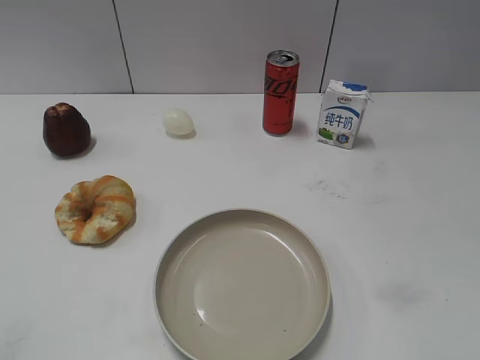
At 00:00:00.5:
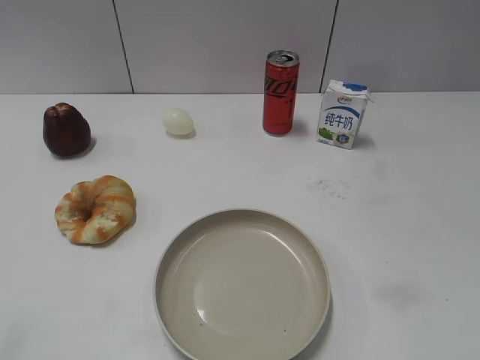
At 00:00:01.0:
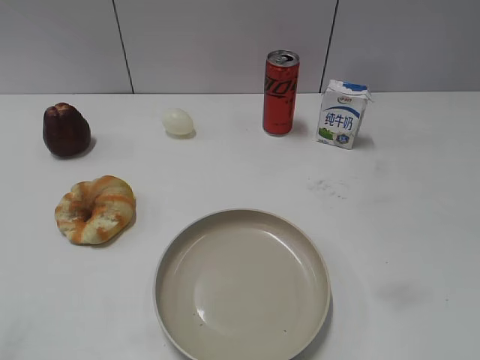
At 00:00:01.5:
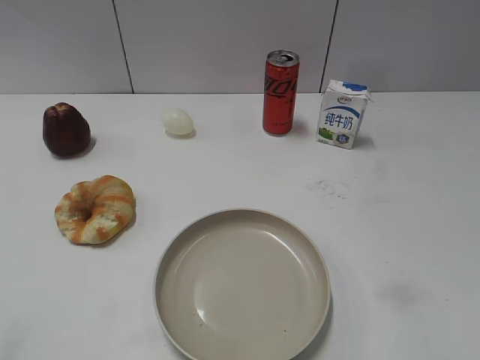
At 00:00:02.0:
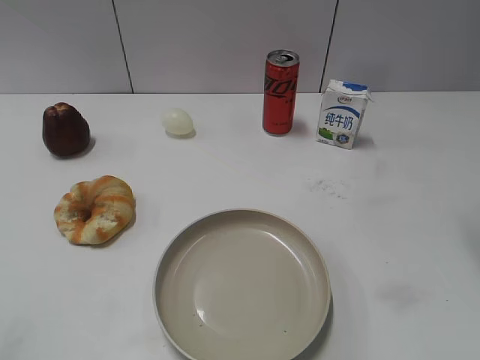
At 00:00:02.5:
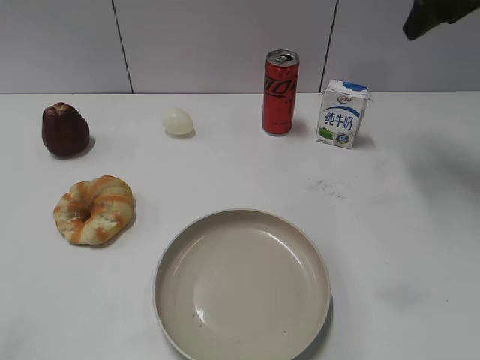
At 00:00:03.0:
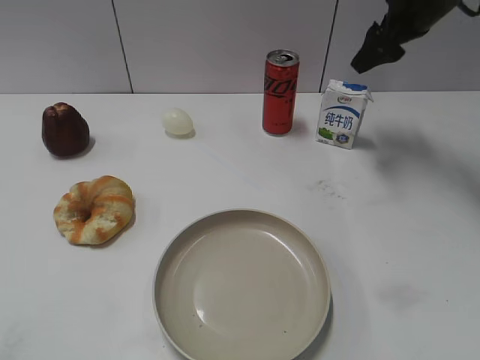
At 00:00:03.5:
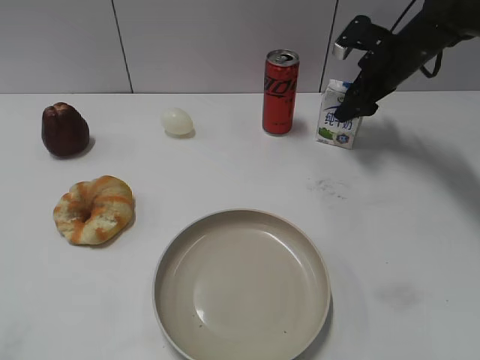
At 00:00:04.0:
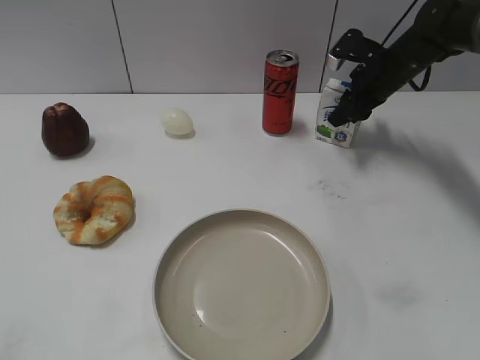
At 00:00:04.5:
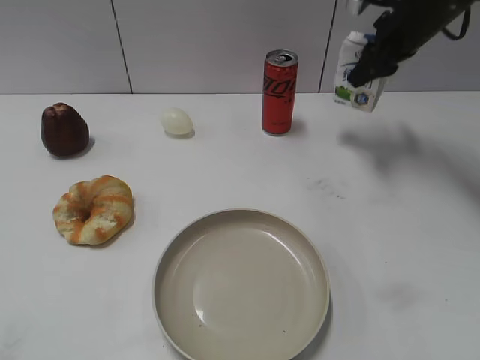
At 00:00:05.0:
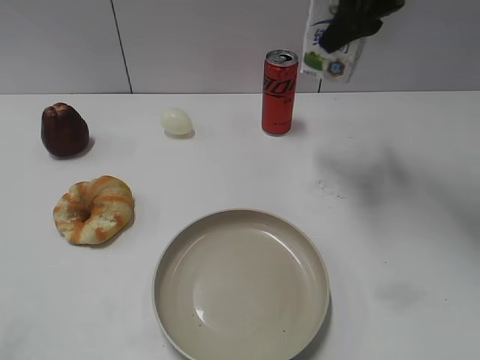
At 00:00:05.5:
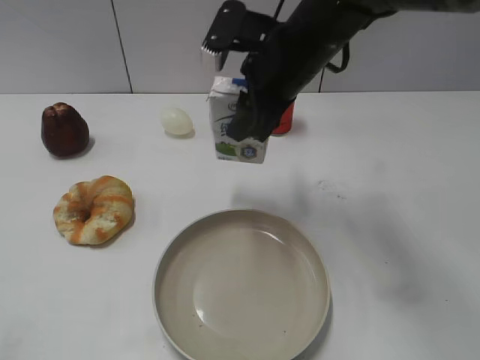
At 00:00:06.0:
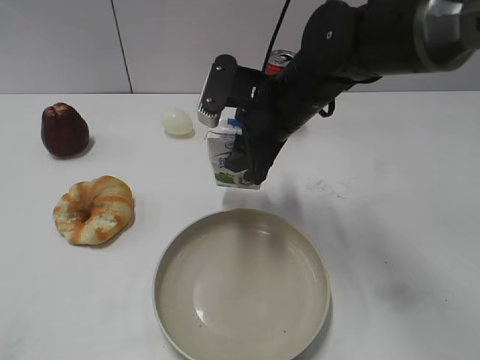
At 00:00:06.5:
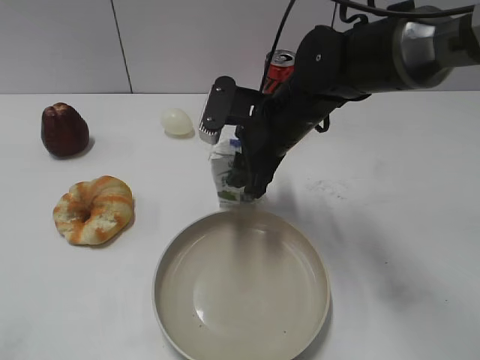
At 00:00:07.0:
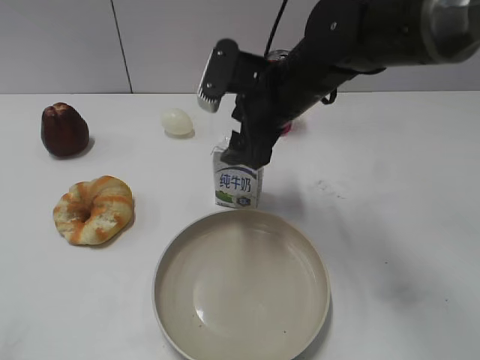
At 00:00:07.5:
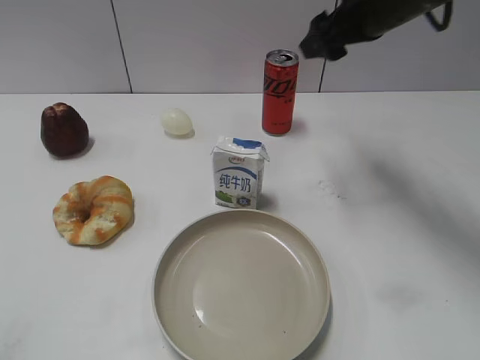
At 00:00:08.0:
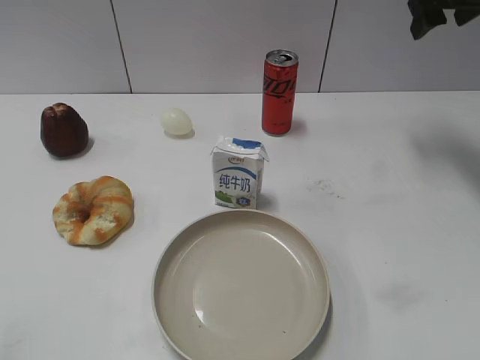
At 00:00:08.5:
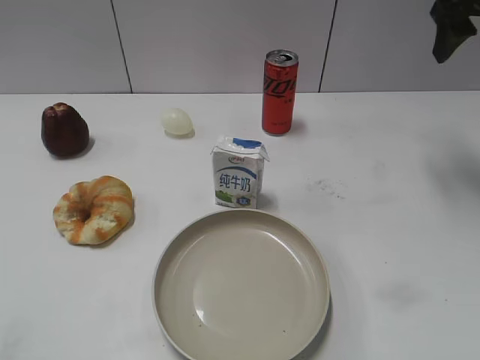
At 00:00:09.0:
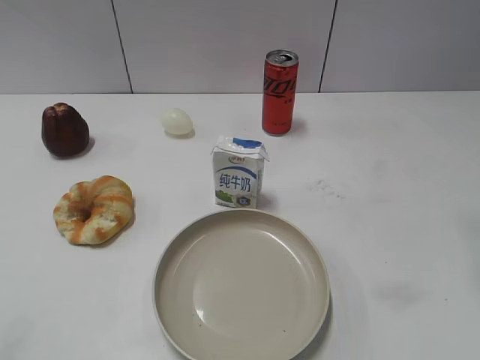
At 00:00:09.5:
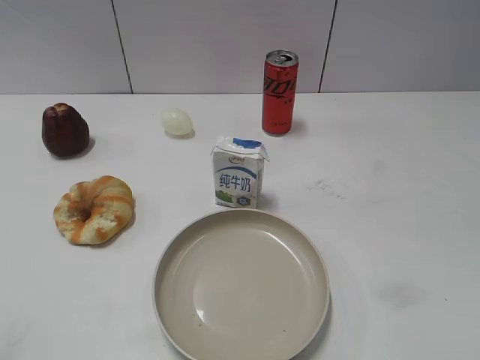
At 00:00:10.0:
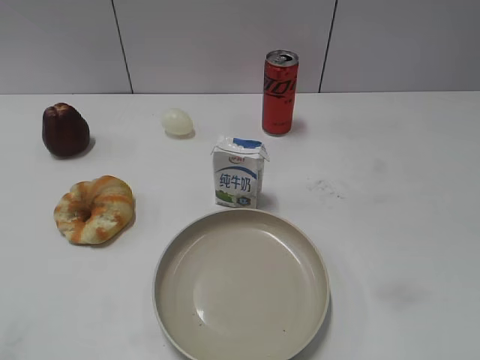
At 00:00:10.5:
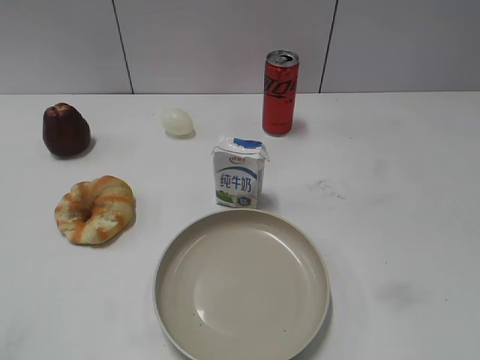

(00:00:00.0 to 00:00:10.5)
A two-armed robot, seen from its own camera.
Step, 00:00:01.0 - 00:00:04.0: Grasp the milk with right gripper.
Step, 00:00:04.5 - 00:00:07.0: Place the milk on the table with right gripper.
00:00:02.0 - 00:00:04.0: The right gripper goes roughly 30 cm forward and downward, and closes up.
00:00:04.0 - 00:00:06.5: The right gripper heads to the left and backward, covering about 25 cm.
00:00:06.5 - 00:00:08.5: The right gripper is displaced to the right and upward by about 30 cm, and opens.
00:00:08.5 - 00:00:10.5: The right gripper goes some 40 cm backward.
